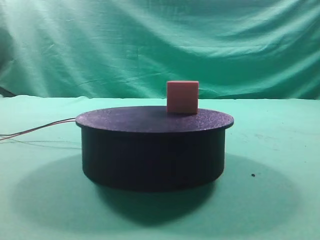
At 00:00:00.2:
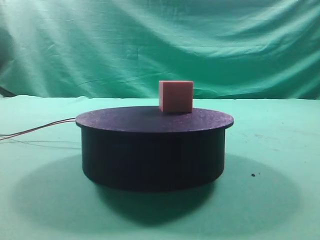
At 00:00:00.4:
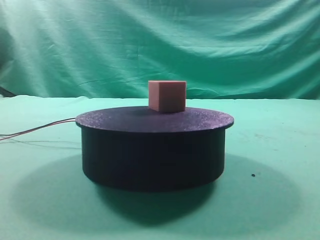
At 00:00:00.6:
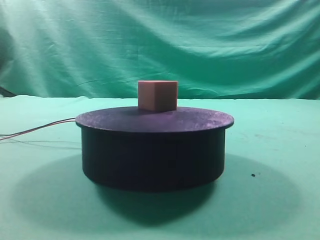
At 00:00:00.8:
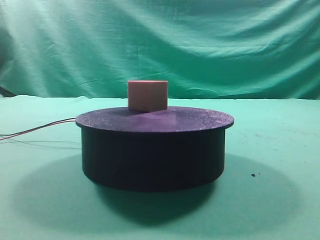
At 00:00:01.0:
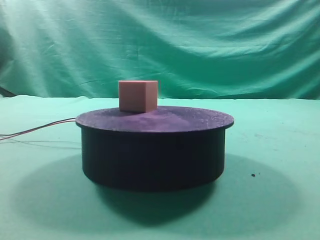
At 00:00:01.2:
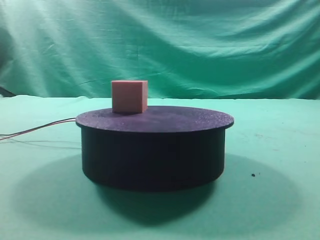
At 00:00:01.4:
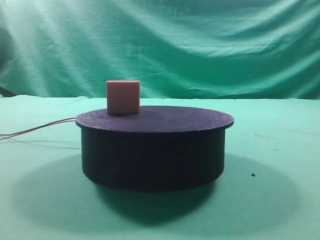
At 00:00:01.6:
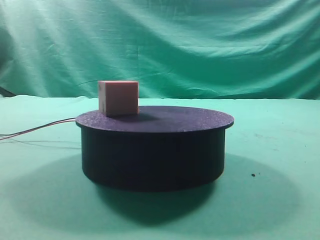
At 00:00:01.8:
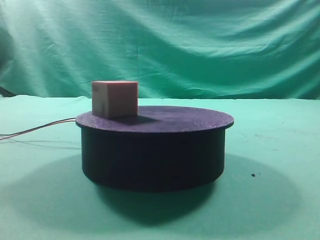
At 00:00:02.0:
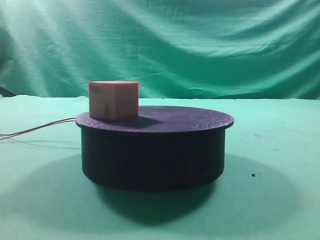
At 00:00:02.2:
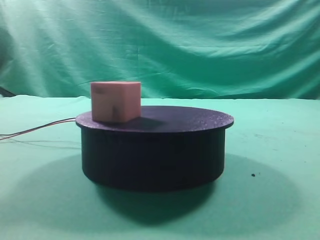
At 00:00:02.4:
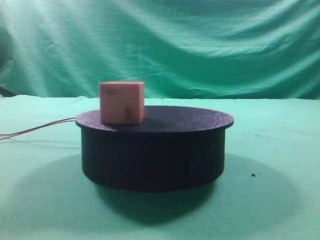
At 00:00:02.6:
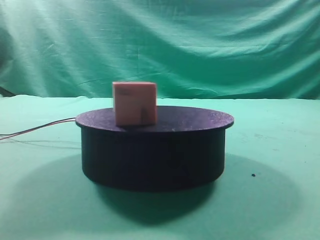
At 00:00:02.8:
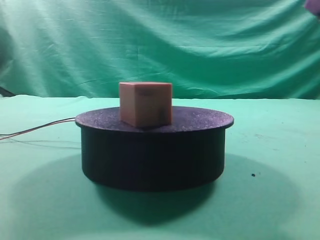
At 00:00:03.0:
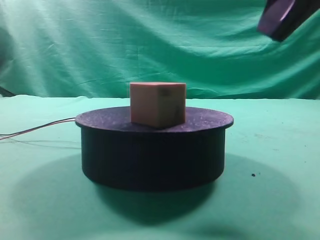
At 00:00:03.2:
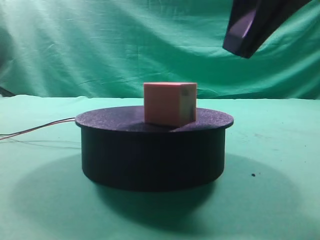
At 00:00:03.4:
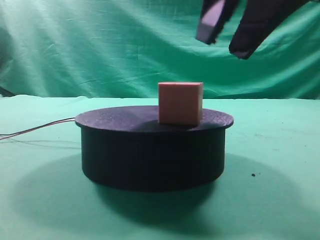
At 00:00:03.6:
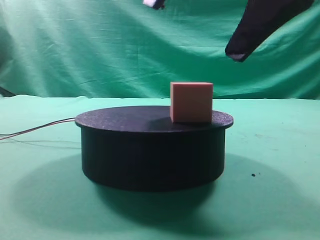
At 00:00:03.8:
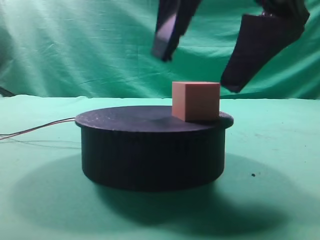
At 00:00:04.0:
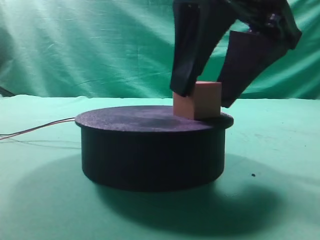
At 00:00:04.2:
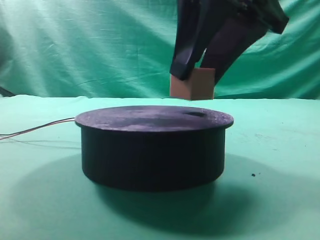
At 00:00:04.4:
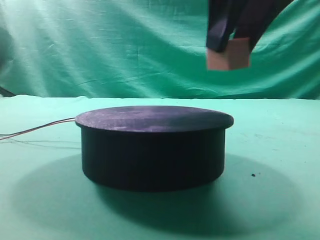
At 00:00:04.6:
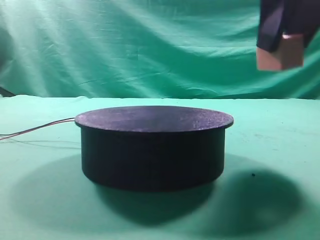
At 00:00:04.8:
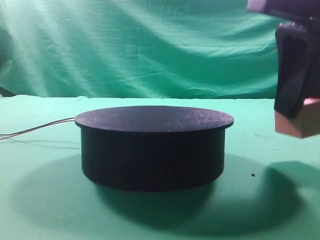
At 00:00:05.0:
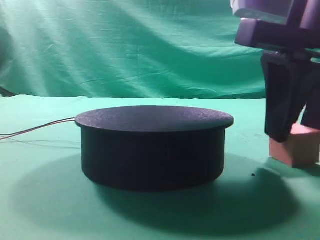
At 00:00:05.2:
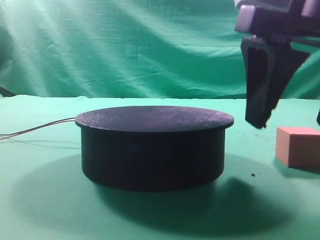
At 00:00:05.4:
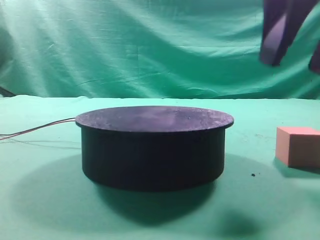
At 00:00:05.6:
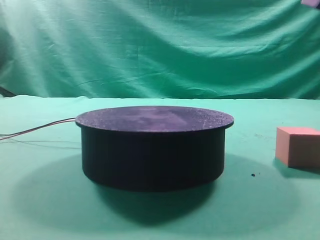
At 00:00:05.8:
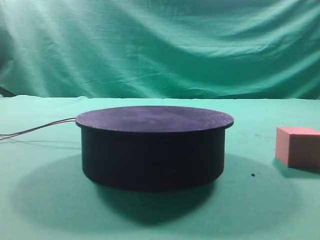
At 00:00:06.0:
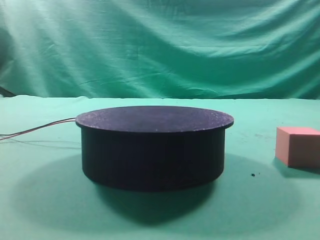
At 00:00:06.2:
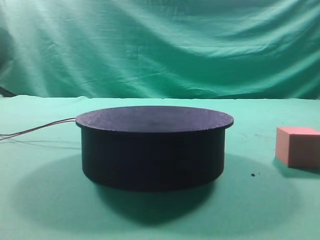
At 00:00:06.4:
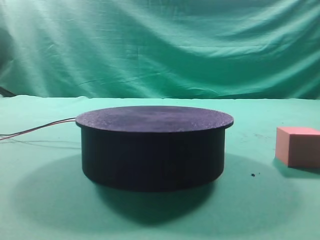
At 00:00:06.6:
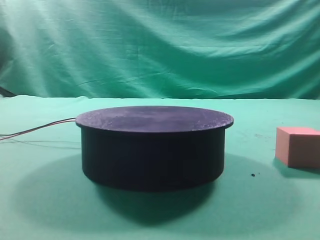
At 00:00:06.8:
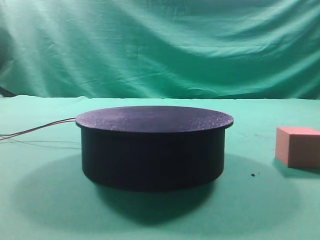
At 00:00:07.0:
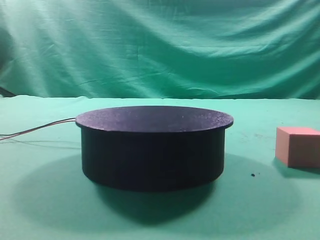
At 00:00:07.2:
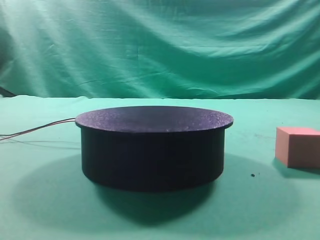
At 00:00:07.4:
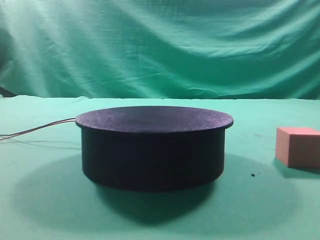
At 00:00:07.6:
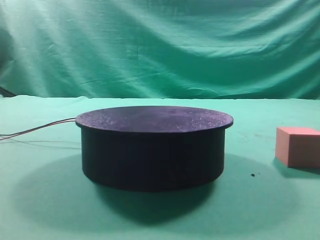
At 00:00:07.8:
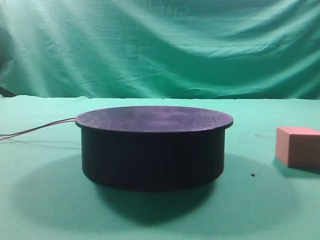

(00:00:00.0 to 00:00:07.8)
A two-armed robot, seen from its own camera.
Task of the whole recording: grasp the rotating cube-shaped block on the turntable and place it on the table.
Step, 00:00:00.0 - 00:00:04.2: Grasp the rotating cube-shaped block on the turntable.
Step, 00:00:04.4 - 00:00:05.2: Place the cube on the desk.
